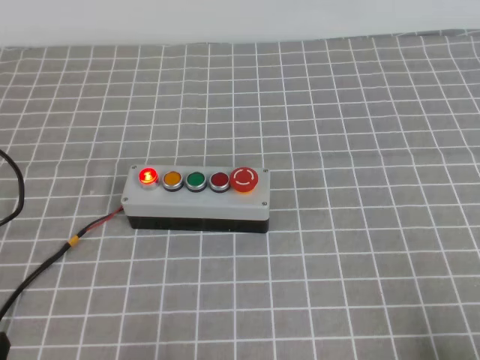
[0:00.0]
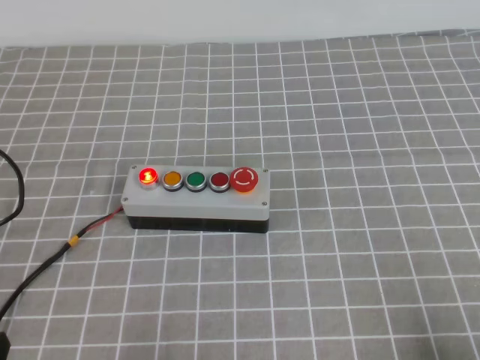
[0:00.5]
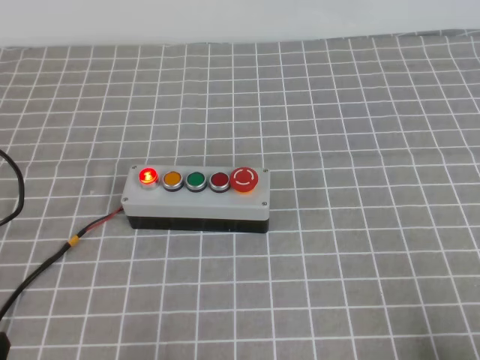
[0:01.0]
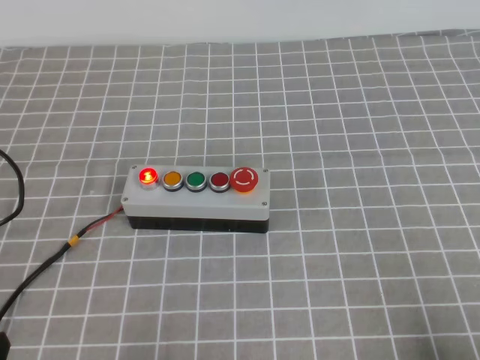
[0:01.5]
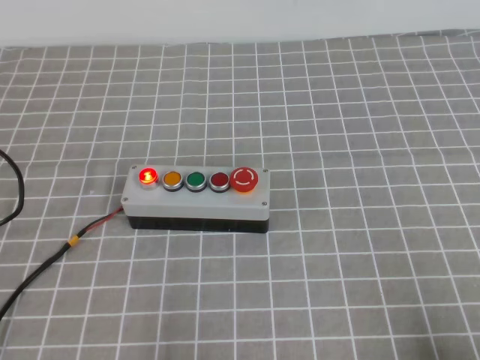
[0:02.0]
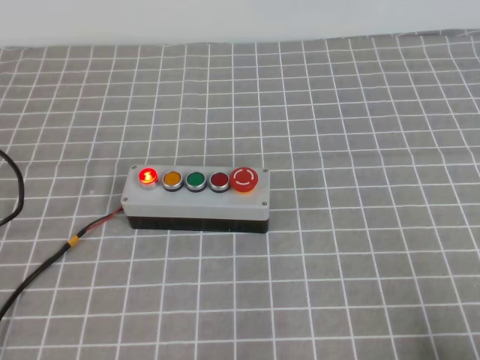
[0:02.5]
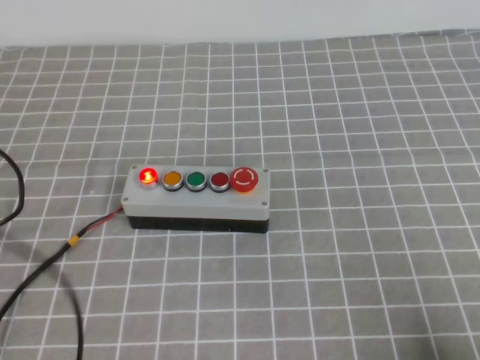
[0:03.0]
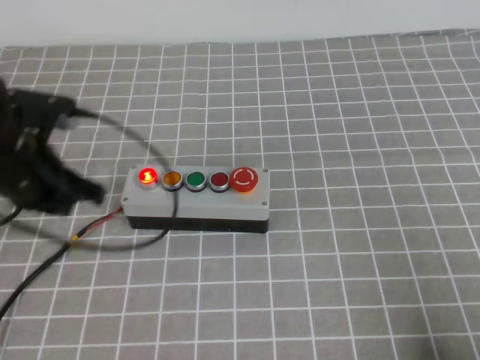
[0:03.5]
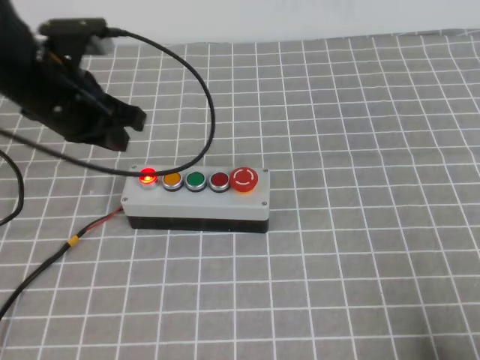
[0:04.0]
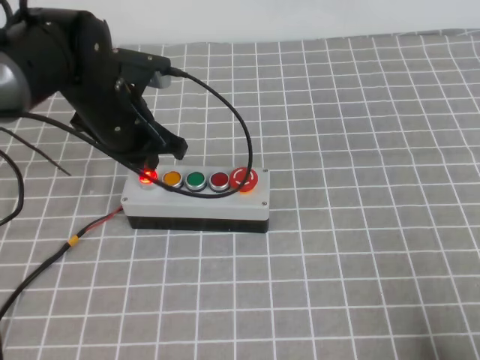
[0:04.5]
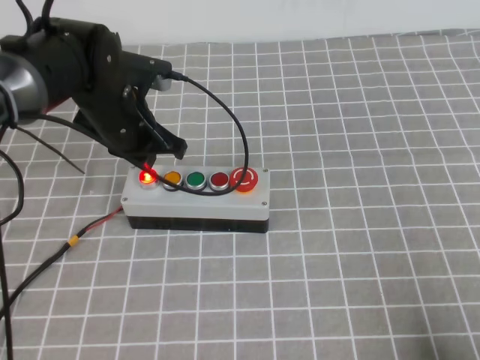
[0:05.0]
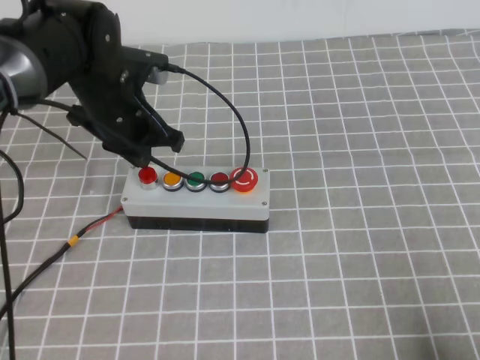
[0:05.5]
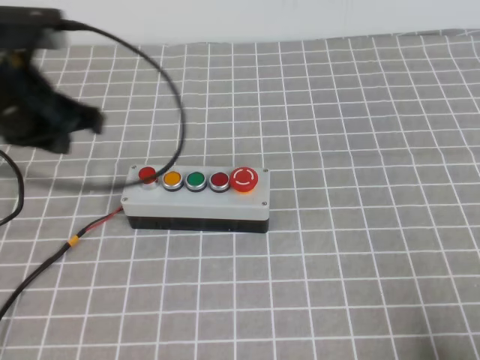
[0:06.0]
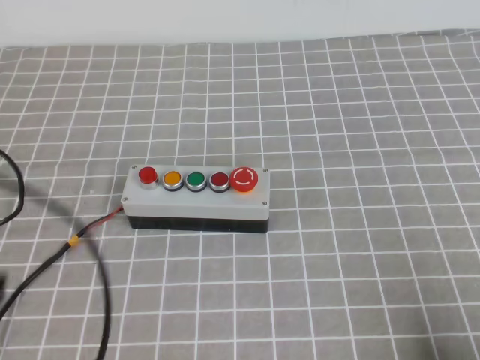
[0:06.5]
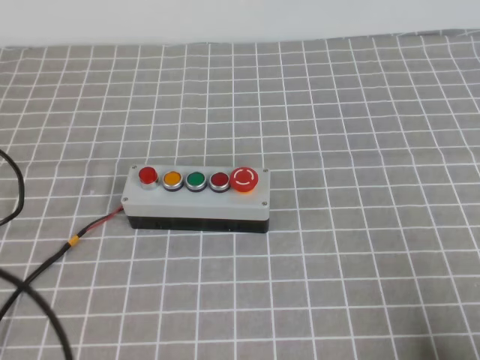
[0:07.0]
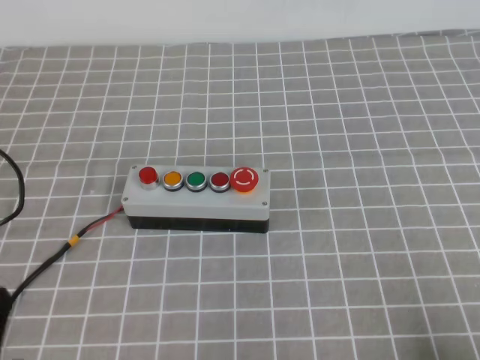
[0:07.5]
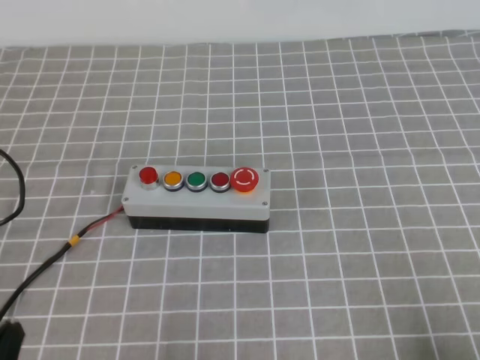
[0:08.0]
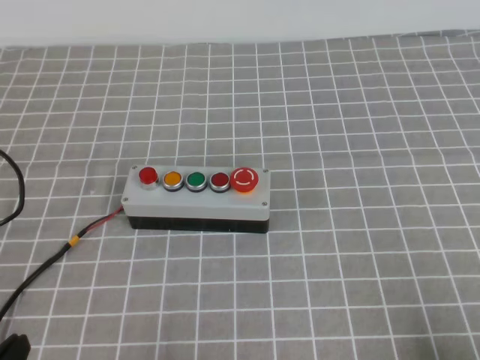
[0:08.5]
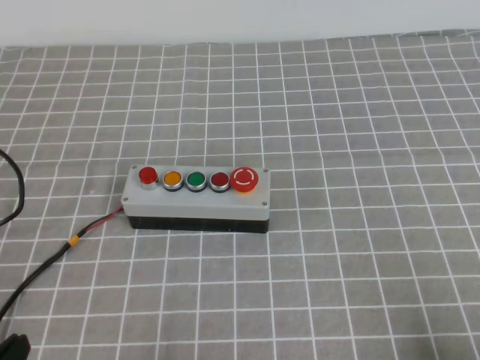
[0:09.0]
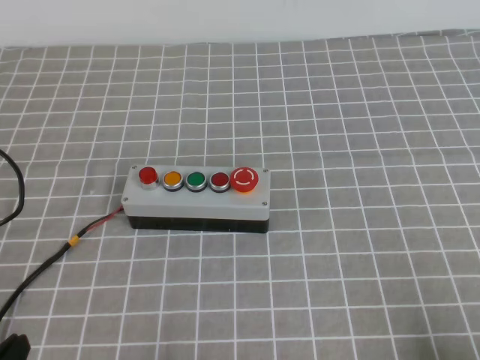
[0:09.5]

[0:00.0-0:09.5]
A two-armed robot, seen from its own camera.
Task of the whole recording: press the button switch on the grey tablecloth with the left gripper to turn off the button.
Step, 0:00.0 to 0:09.5: Press the button to turn off.
0:02.0 to 0:04.0: The left gripper moves forward and upward, roughly 30 cm.
0:04.0 to 0:05.5: The left gripper shifts by about 5 cm.
0:05.5 to 0:07.5: The left gripper travels backward by some 30 cm.

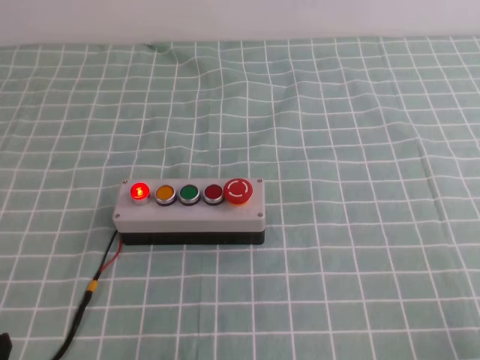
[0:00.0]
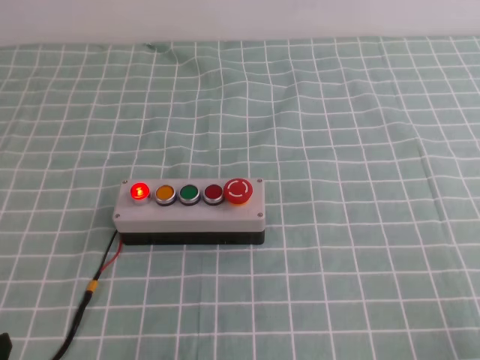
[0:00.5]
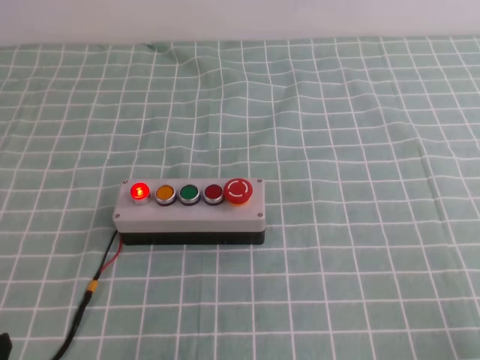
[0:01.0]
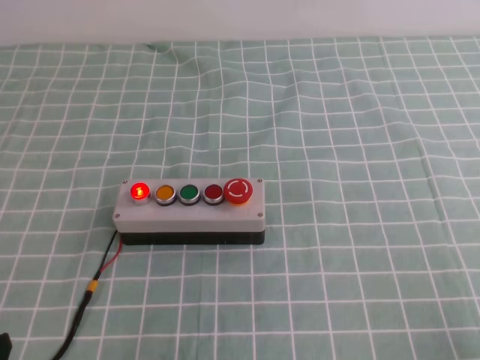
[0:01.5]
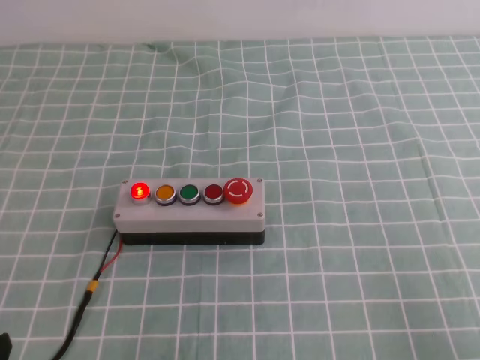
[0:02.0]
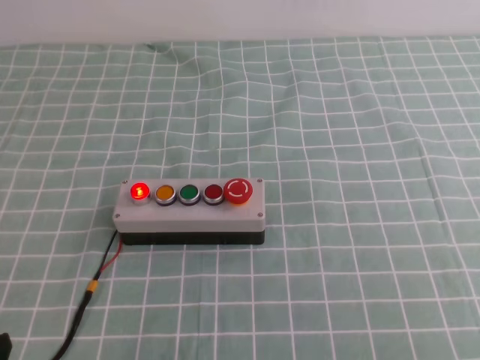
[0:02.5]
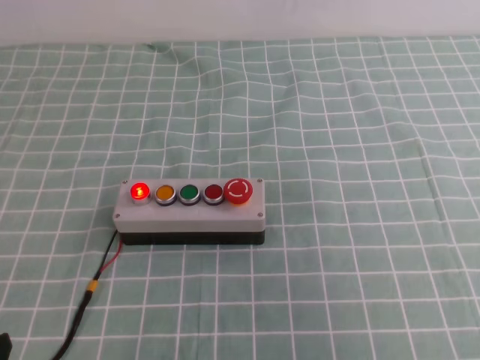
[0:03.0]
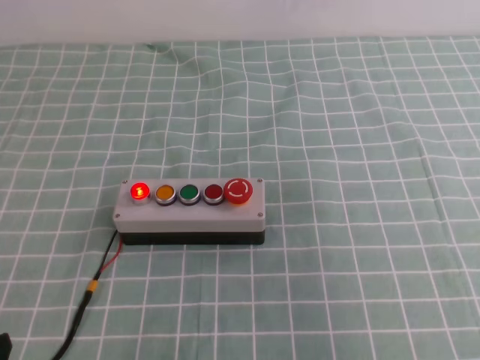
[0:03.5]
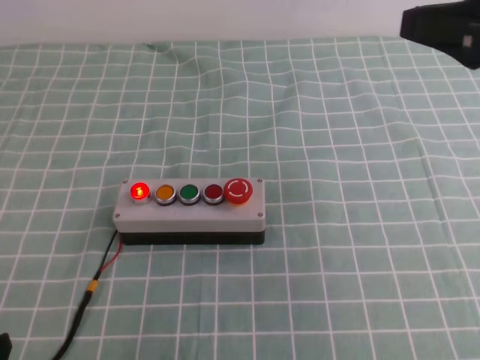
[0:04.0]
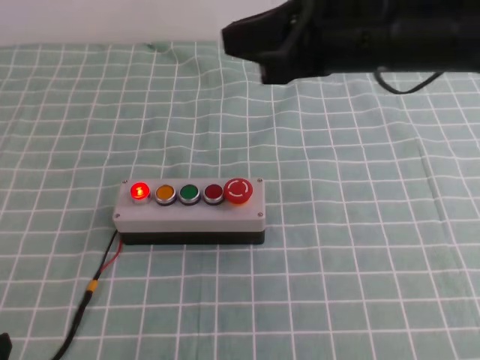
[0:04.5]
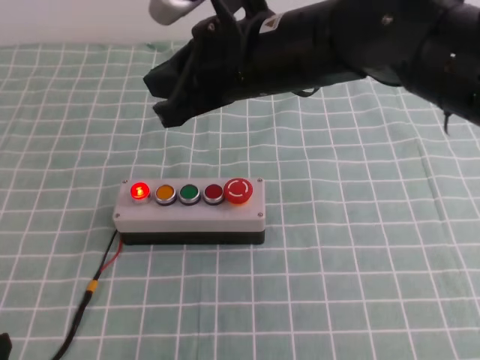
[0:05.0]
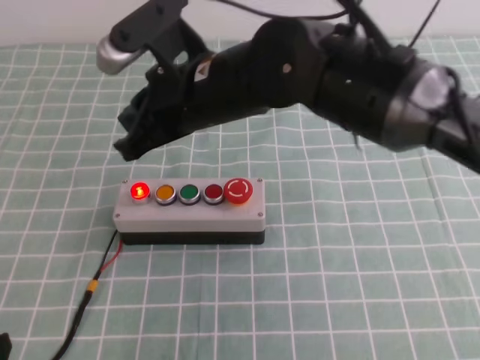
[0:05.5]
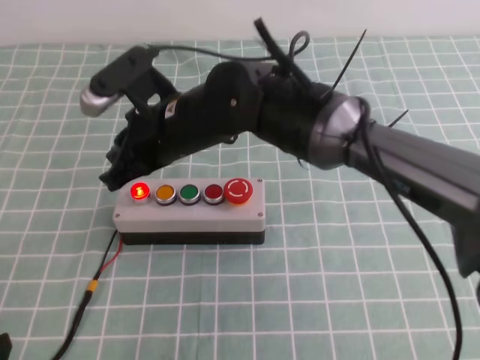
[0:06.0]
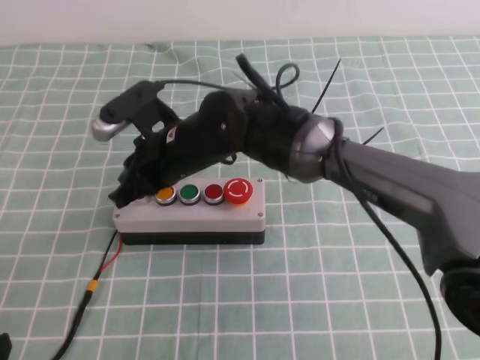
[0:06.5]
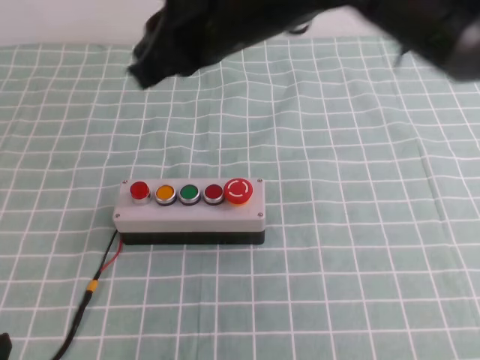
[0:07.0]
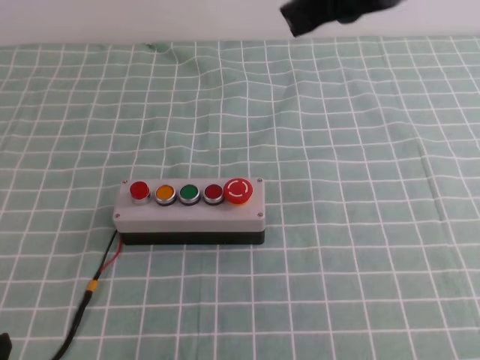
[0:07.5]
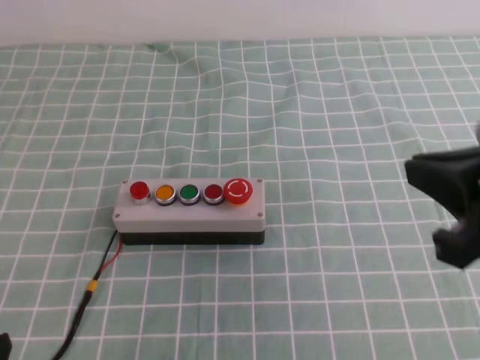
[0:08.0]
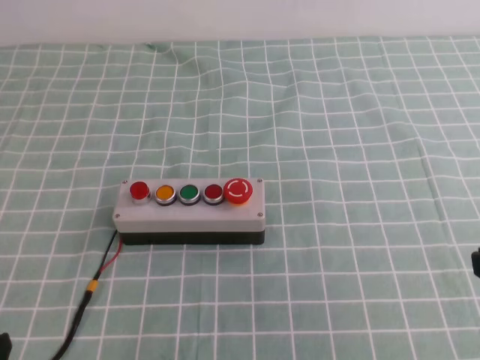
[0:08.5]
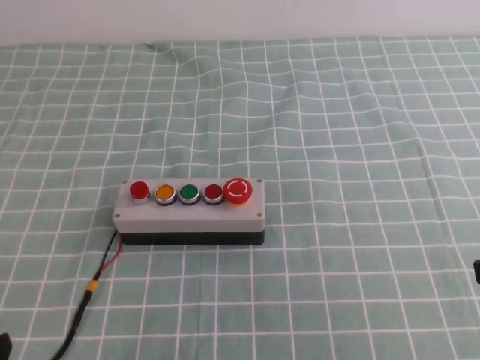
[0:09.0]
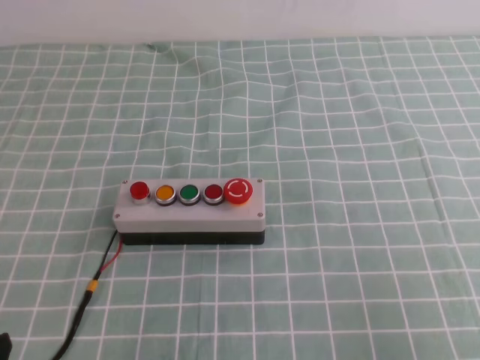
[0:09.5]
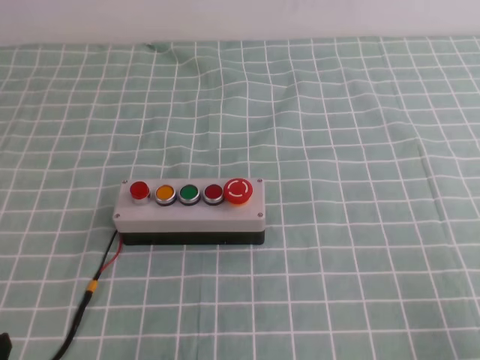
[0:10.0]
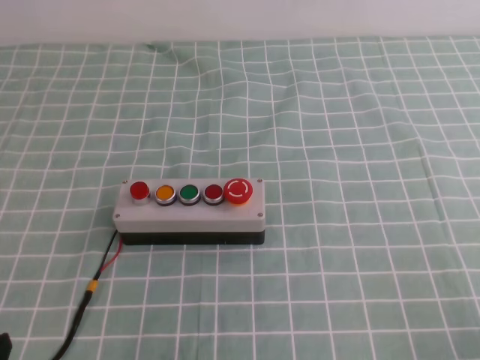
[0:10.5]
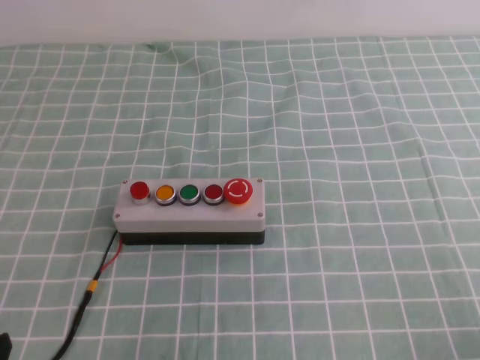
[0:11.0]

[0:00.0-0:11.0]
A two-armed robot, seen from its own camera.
Task of the whole recording: press the button switch on the cyan tablecloth with the right gripper to turn off the button.
Step, 0:00.0 to 0:11.0: Press the button to turn off.
0:02.0 to 0:03.5: The right gripper heads upward and forward, covering approximately 20 cm.
0:03.5 to 0:05.5: The right gripper heads to the left and forward, covering roughly 35 cm.
0:05.5 to 0:07.5: The right gripper goes about 20 cm to the right and upward.
0:07.5 to 0:09.0: The right gripper heads backward, downward and to the right, covering some 25 cm.

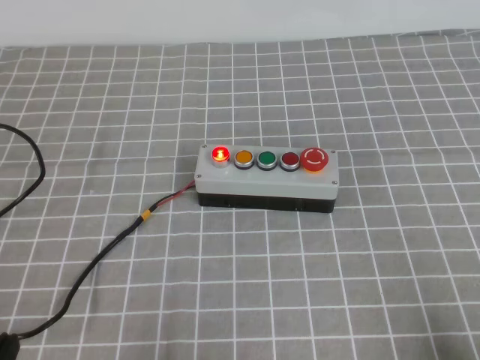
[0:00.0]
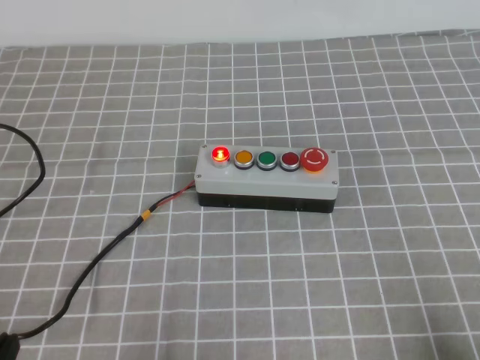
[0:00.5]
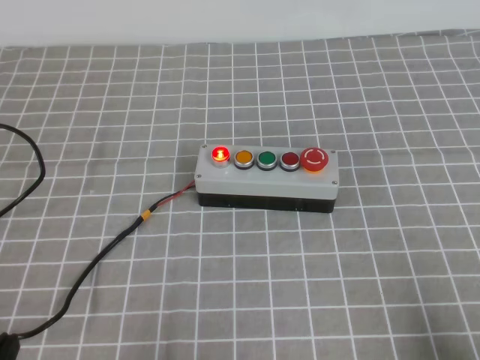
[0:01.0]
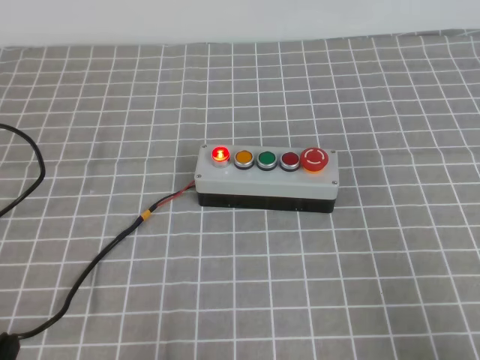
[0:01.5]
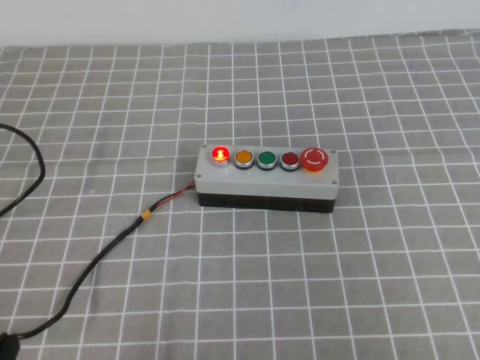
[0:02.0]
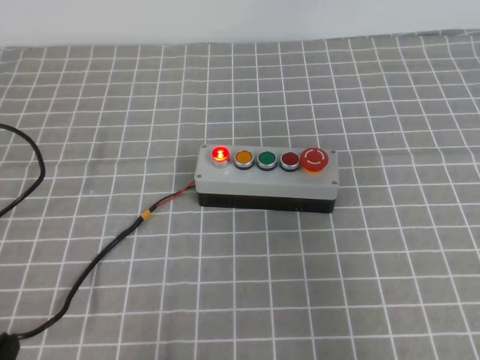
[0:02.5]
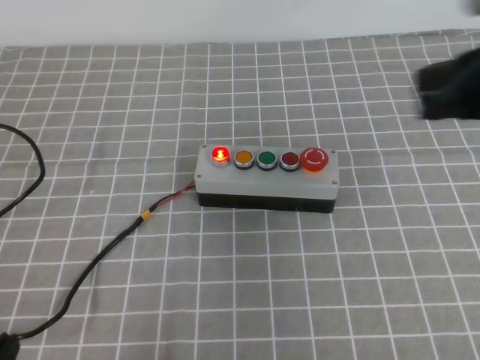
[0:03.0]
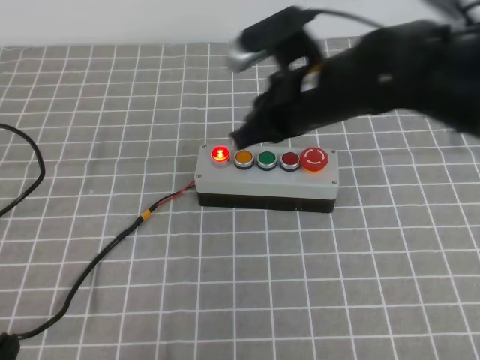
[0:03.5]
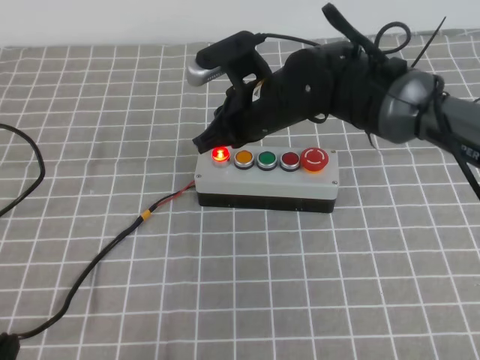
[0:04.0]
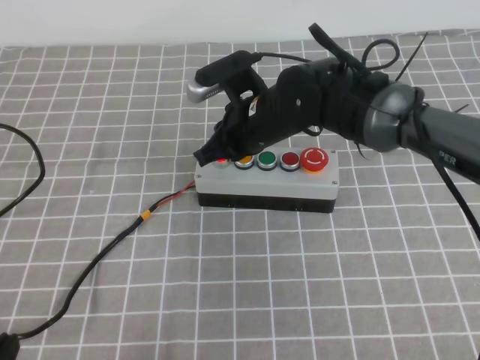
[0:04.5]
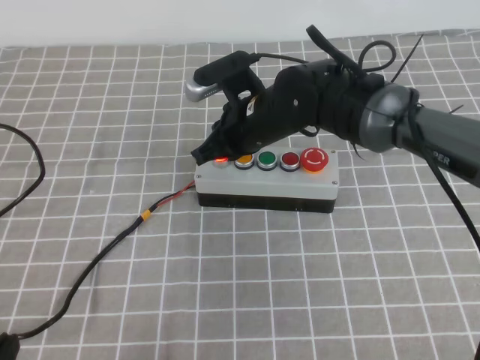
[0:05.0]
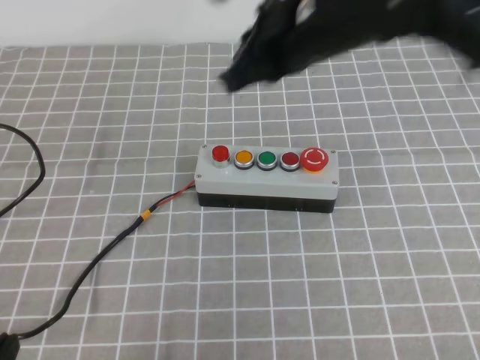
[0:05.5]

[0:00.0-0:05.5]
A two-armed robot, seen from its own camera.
Task of the whole recording: press the button switch on the grey tablecloth with the right gripper to turn off the button.
0:00.0 to 0:02.0: The right gripper heads upward, covering some 20 cm.
0:02.0 to 0:03.5: The right gripper heads forward and to the left, covering about 40 cm.
0:03.5 to 0:05.5: The right gripper travels upward by about 5 cm.
